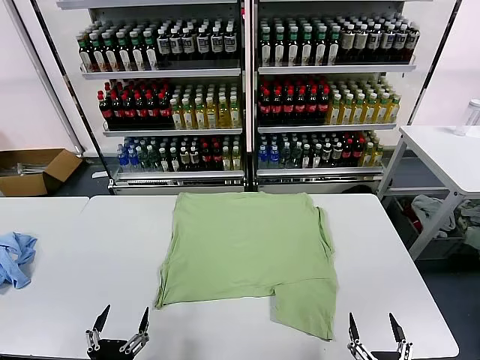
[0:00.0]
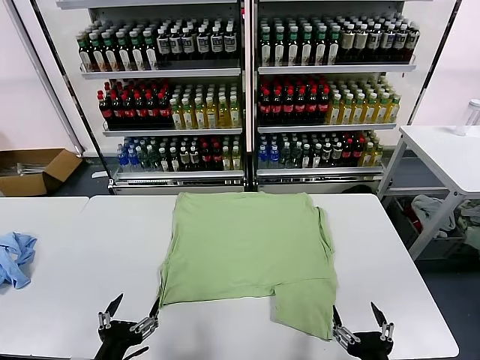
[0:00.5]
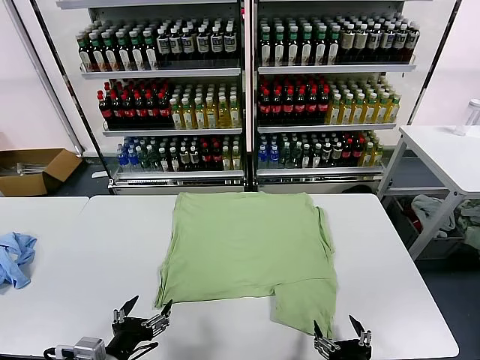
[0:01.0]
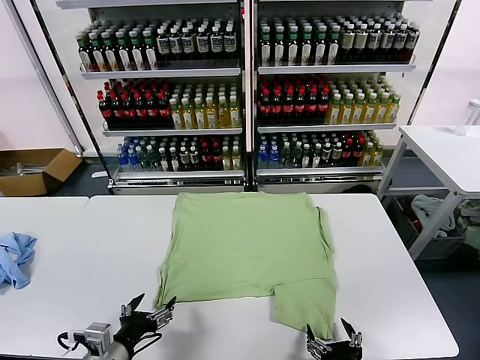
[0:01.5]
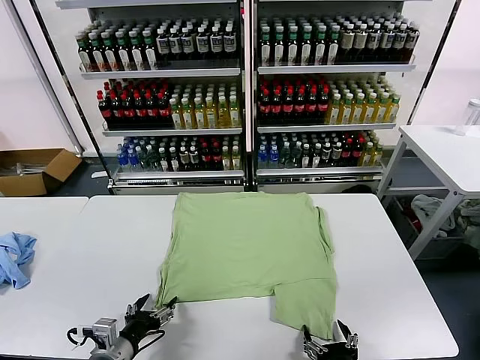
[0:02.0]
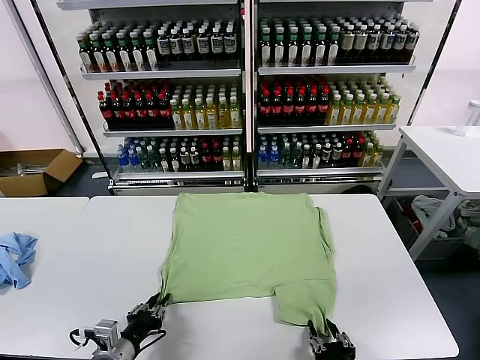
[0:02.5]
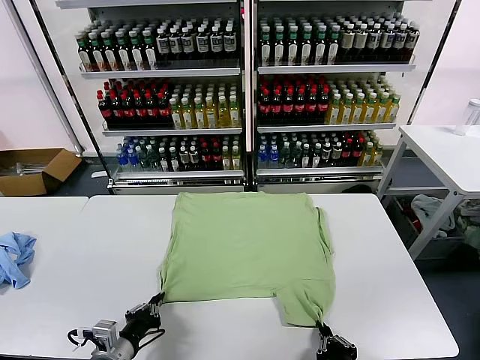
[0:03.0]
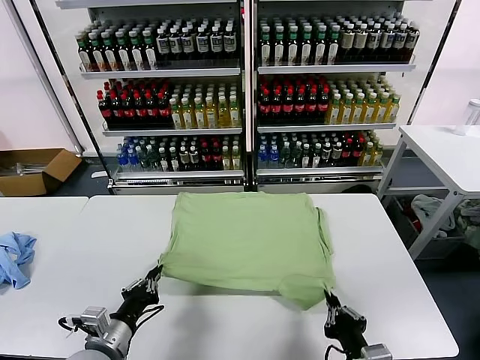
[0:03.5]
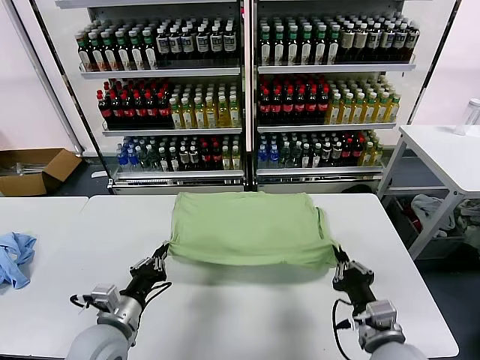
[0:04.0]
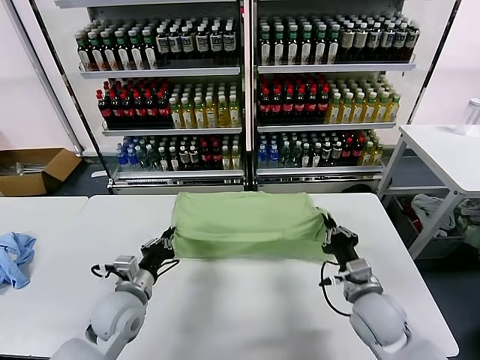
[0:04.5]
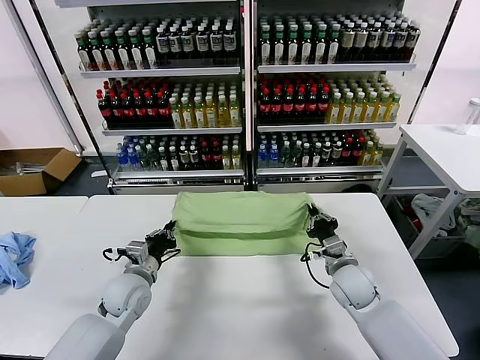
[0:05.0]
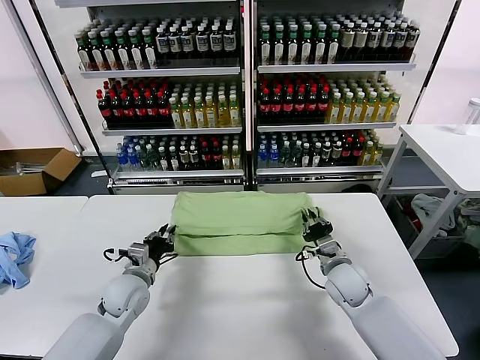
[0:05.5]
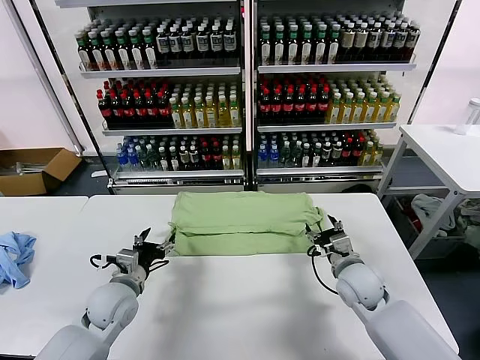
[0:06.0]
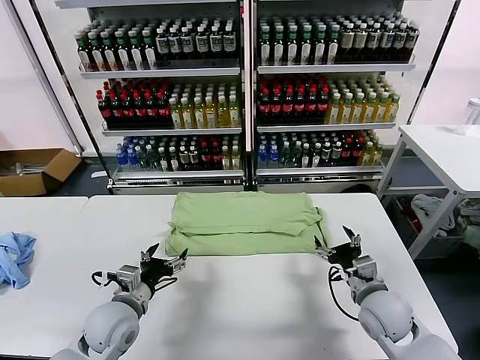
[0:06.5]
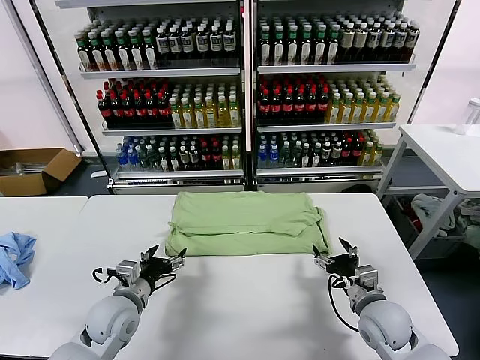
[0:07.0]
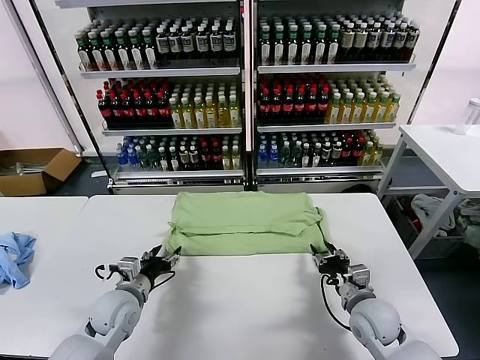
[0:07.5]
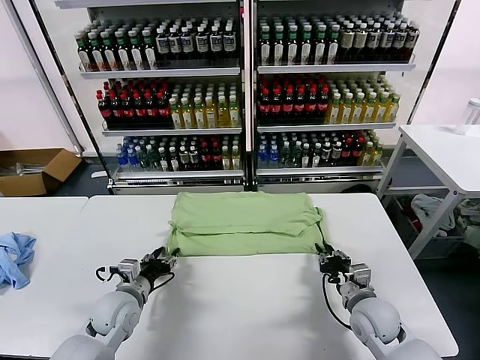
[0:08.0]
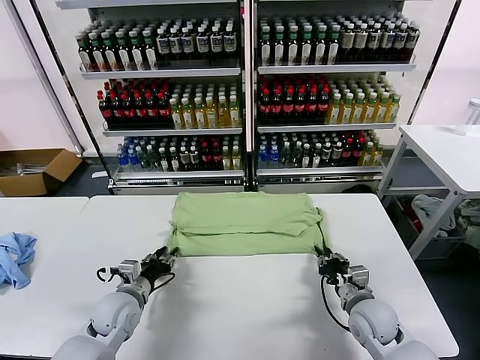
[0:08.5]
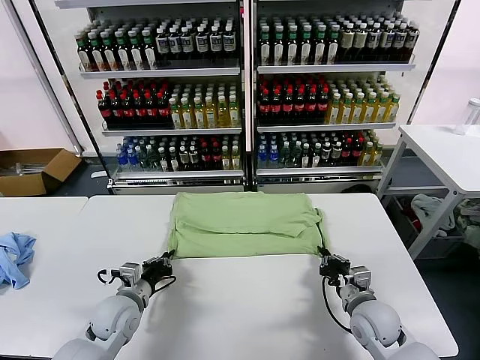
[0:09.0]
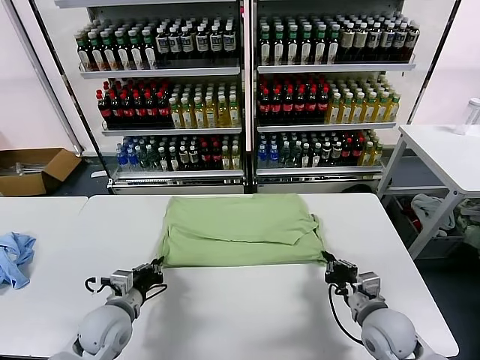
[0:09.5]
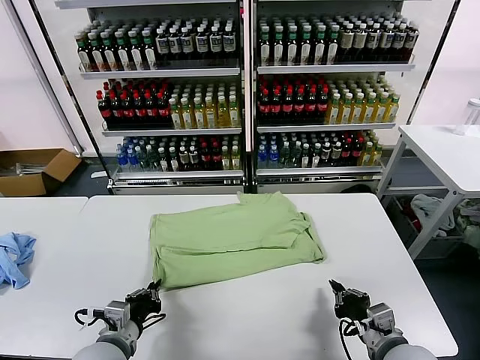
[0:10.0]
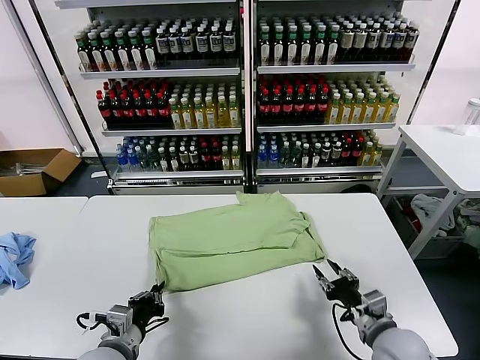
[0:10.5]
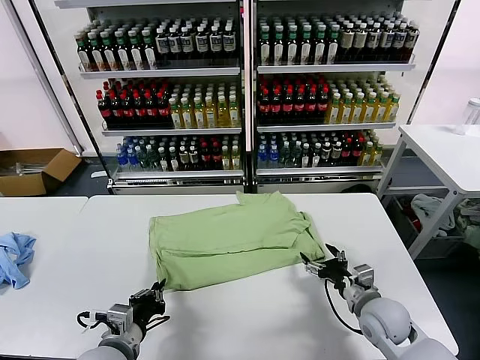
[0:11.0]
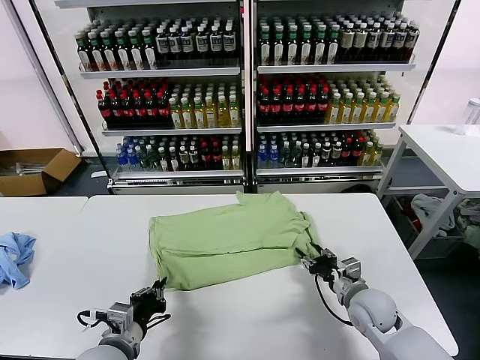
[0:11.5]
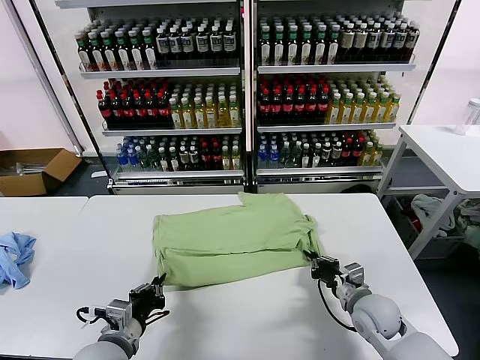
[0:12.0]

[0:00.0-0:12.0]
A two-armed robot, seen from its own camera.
Task of the whole recording: fold and organize the clothes.
Step, 0:00.0 to 0:02.5: use both grippers simultaneously to clamp the lower edge of the clothing fabric.
Step, 0:03.0 to 0:05.5: use both grippers to drag the lower edge of the fabric forward and fold it over the upper edge.
0:02.0 to 0:04.0: The left gripper heads forward, covering some 5 cm, and closes its fingers. The right gripper moves forward, roughly 10 cm, and closes up.
0:04.0 to 0:06.0: Both grippers travel together forward, some 10 cm. The right gripper opens its fingers. Meanwhile the left gripper opens.
0:06.0 to 0:08.0: The right gripper moves downward, roughly 5 cm, and closes up.
0:08.0 to 0:10.0: The right gripper moves backward and upward, about 10 cm, while the left gripper shifts roughly 10 cm backward, and closes its fingers.
0:10.0 to 0:12.0: The right gripper goes some 15 cm forward and downward, and opens, then closes again.

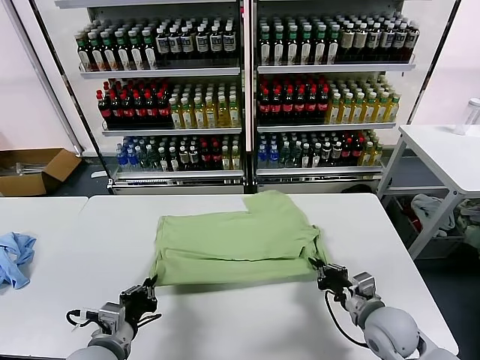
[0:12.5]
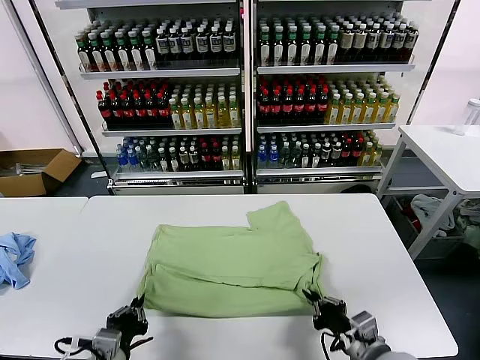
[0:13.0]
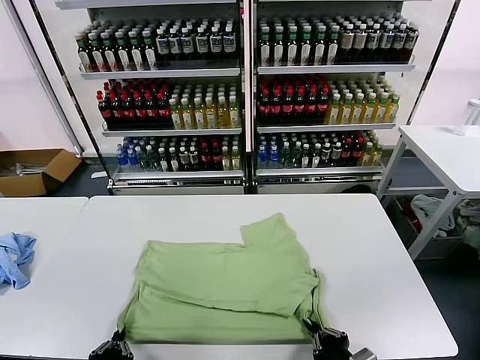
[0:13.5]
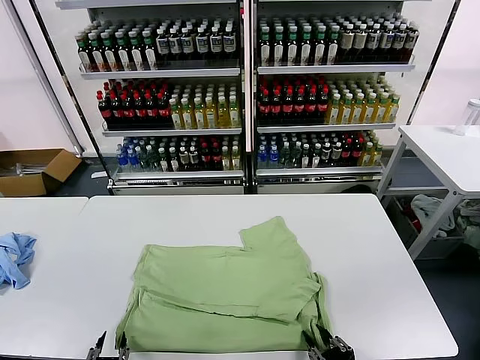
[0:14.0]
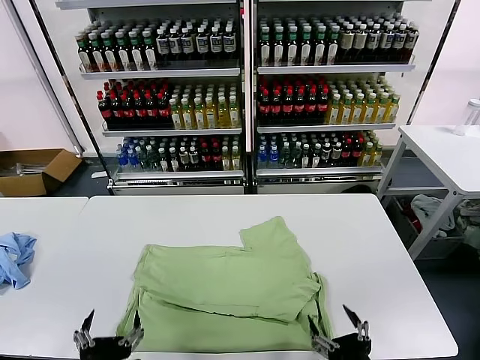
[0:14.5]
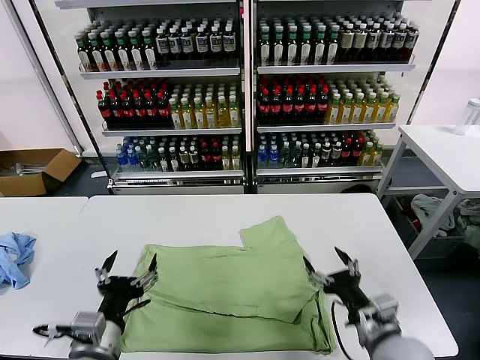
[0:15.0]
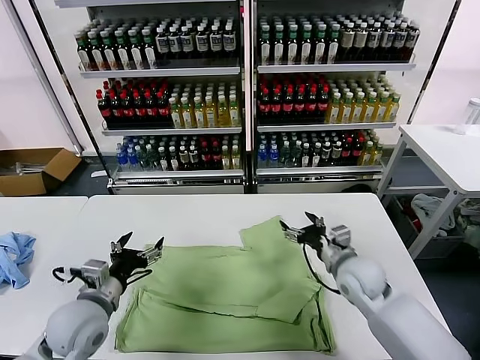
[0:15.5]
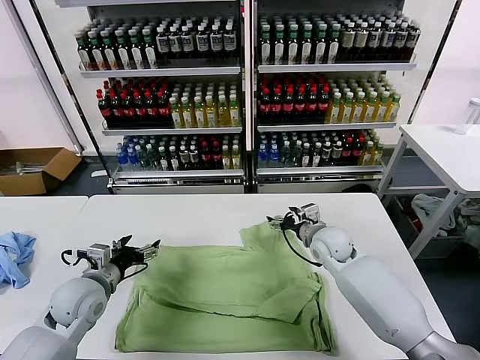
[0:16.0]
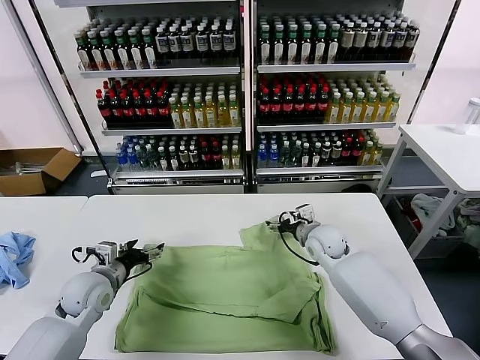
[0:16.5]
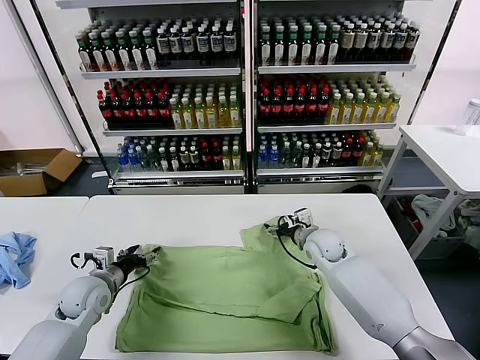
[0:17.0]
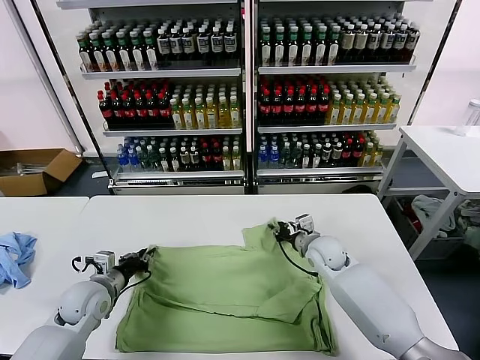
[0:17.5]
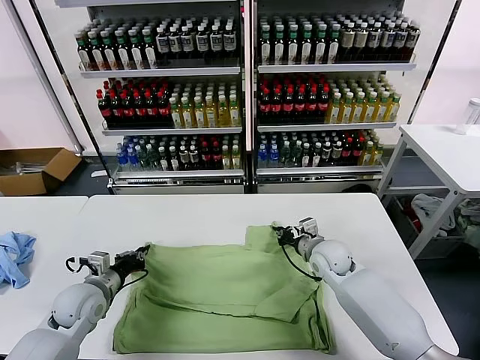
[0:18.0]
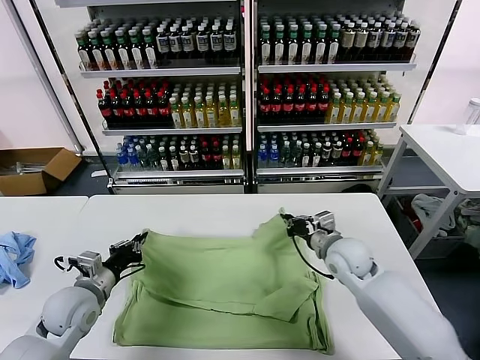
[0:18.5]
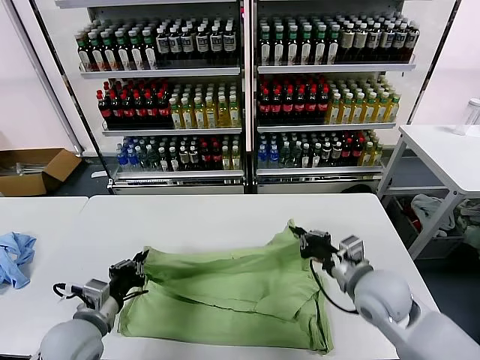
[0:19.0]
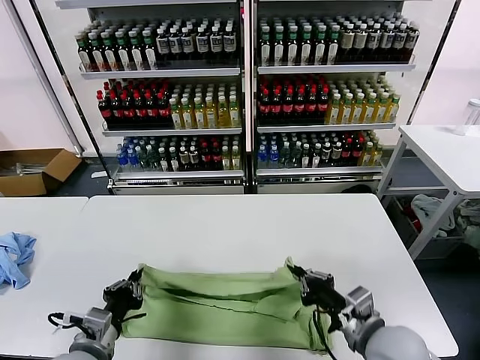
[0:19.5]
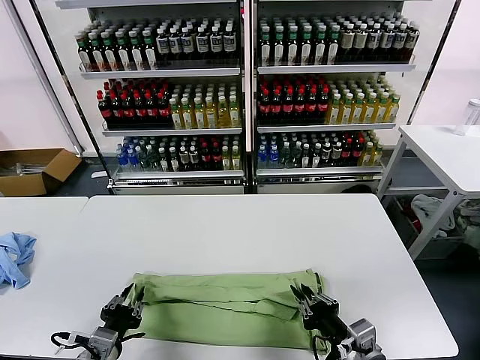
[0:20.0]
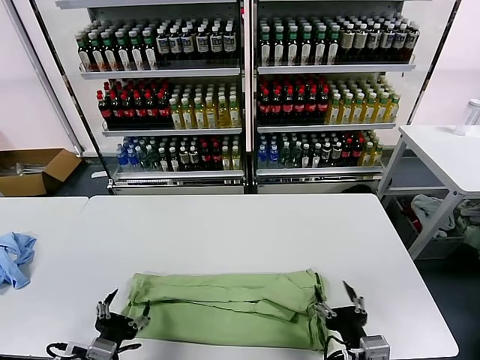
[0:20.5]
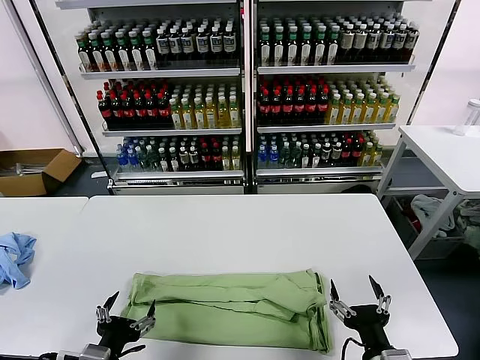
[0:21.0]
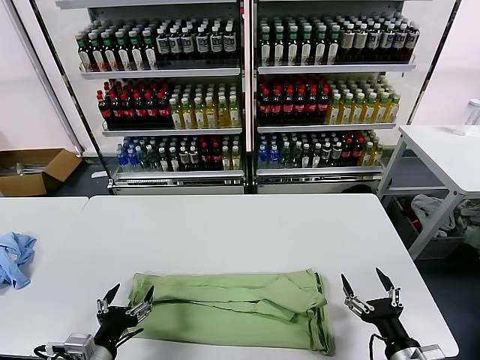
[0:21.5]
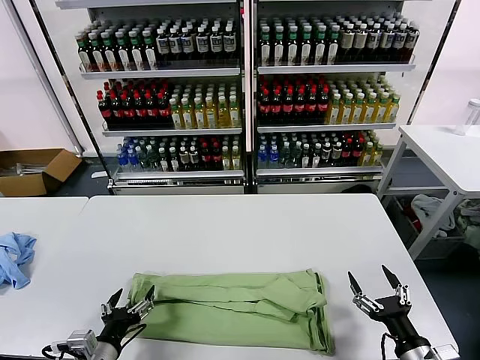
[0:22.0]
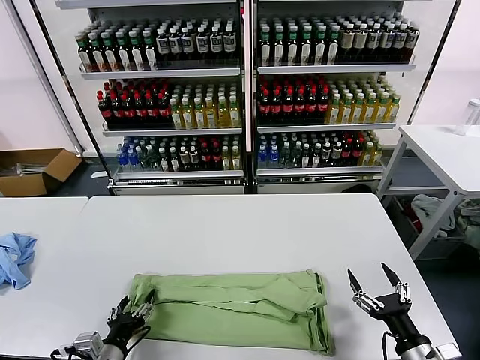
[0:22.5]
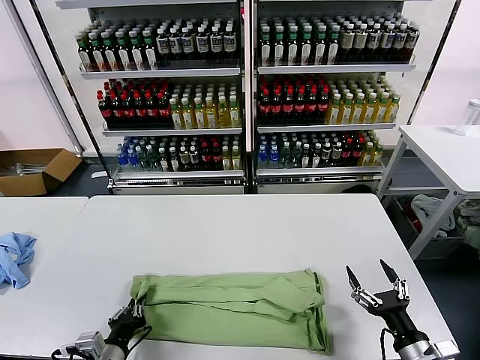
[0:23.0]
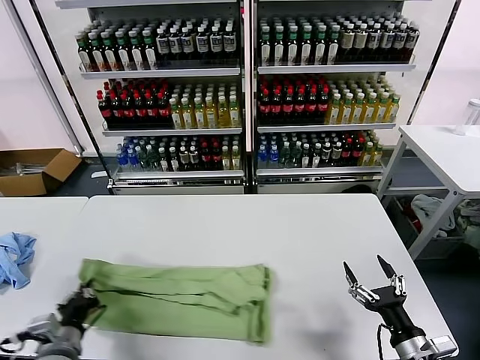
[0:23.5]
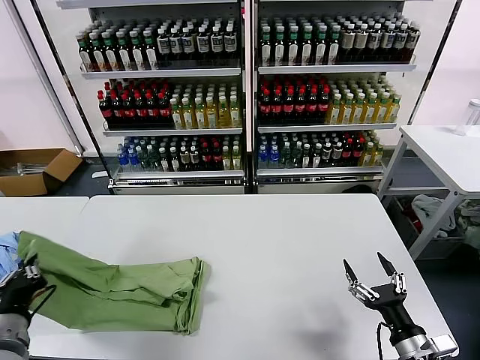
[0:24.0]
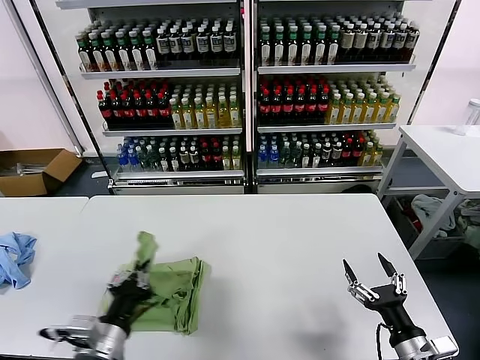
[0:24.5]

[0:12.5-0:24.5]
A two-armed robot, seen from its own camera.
Task of the whole recording: fold and organize the clothes.
Step, 0:14.5 to 0:17.5: use both grippers simultaneously to clamp the upper edge of the clothing fabric.
Step, 0:18.0 to 0:20.0: use both grippers to drag the upper edge of the fabric backward and fold it over the lower edge.
Step, 0:20.5 to 0:23.0: use the left gripper to clamp the left edge of the fabric.
0:12.5 to 0:14.5: Both grippers travel together backward, roughly 15 cm. The right gripper opens; the left gripper opens its fingers.
0:14.5 to 0:16.5: The right gripper moves forward, some 40 cm. The left gripper goes about 30 cm forward and to the left.
0:16.5 to 0:18.5: The left gripper closes up; the right gripper goes roughly 10 cm backward, and closes its fingers.
0:18.5 to 0:20.5: The right gripper moves backward, roughly 25 cm, and opens up. Meanwhile the left gripper goes approximately 20 cm backward and to the right, and opens up.
0:20.5 to 0:22.5: The left gripper shifts about 5 cm downward, while the right gripper travels to the right by approximately 10 cm.
0:22.5 to 0:24.5: The left gripper moves upward, roughly 10 cm, and closes its fingers.

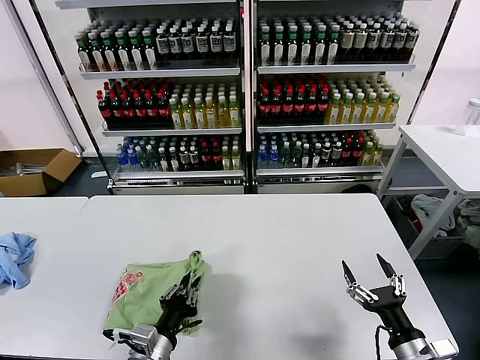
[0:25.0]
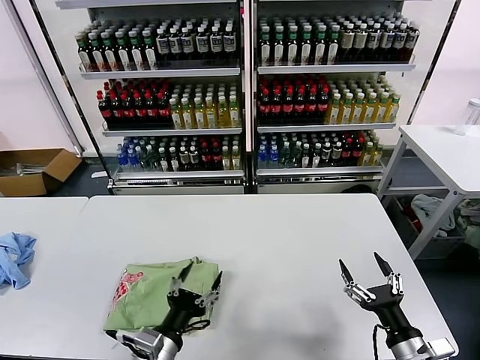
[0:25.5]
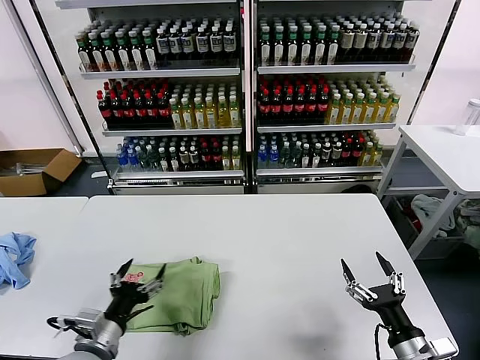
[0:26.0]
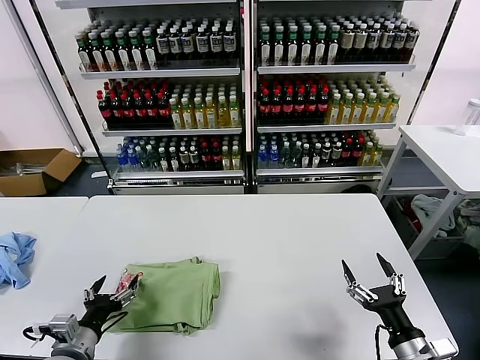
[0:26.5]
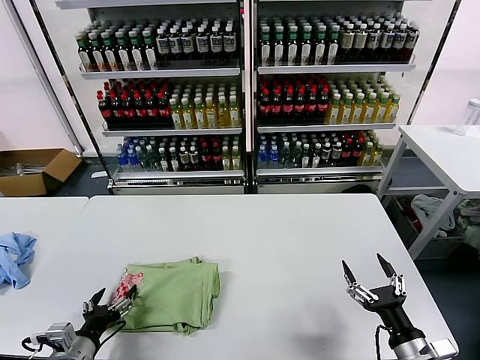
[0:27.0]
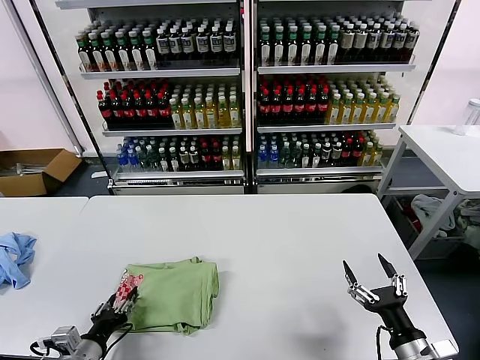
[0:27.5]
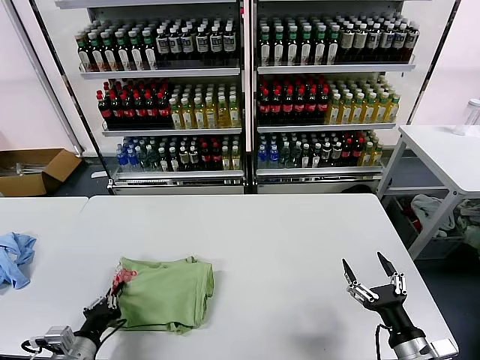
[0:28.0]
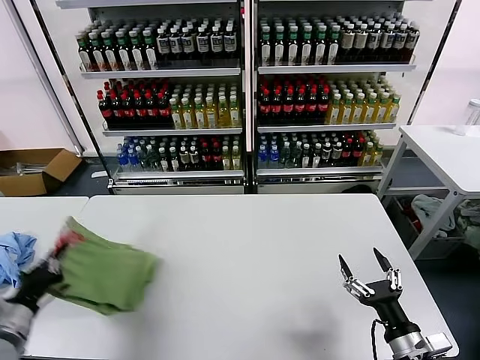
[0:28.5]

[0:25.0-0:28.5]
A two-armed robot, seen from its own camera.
Task of the whole recording: fold and organize the clothes.
0:25.0 to 0:27.0: The left gripper moves to the left, some 15 cm, and opens.
0:27.0 to 0:28.5: The left gripper travels upward and to the left by about 10 cm, and closes up.
